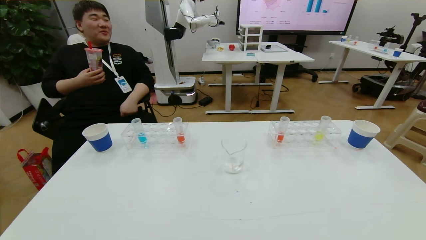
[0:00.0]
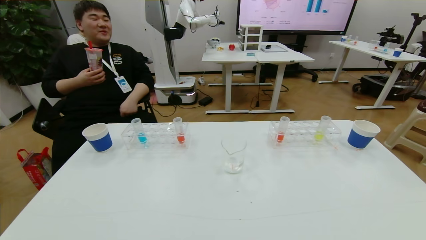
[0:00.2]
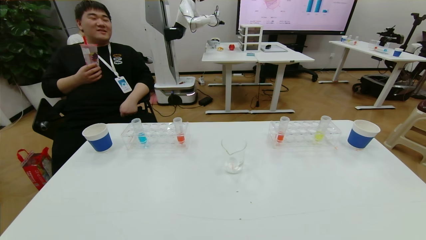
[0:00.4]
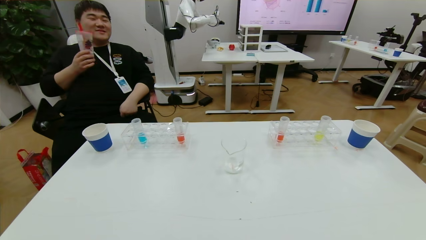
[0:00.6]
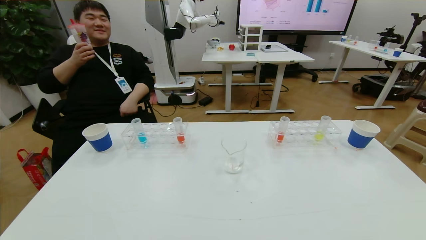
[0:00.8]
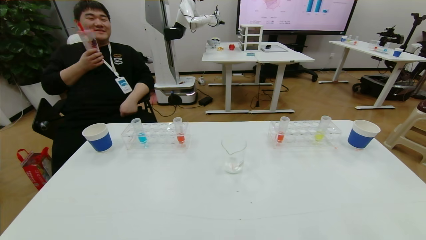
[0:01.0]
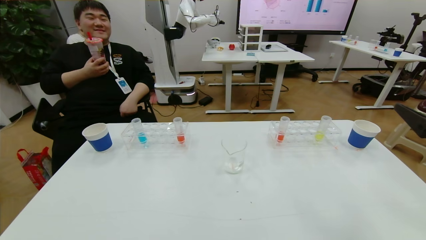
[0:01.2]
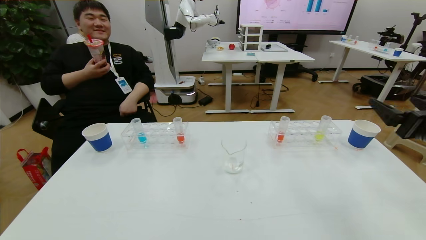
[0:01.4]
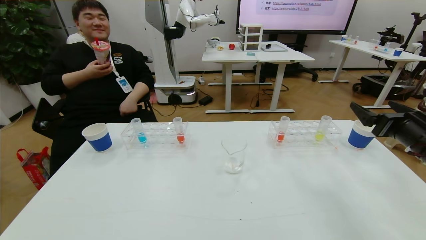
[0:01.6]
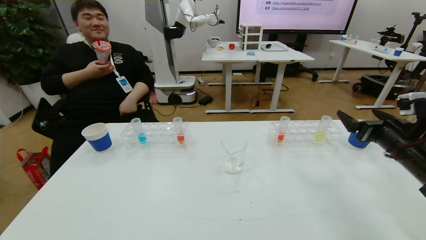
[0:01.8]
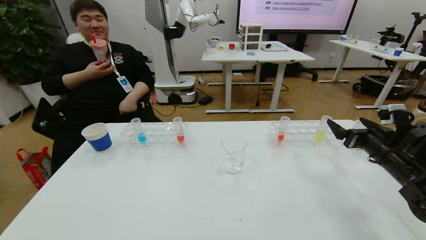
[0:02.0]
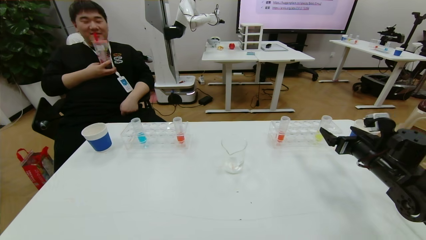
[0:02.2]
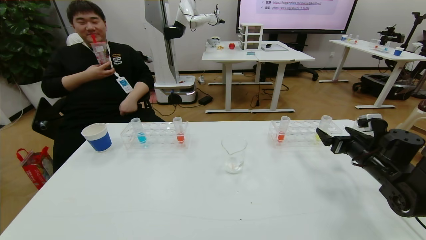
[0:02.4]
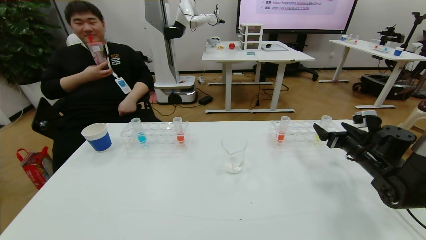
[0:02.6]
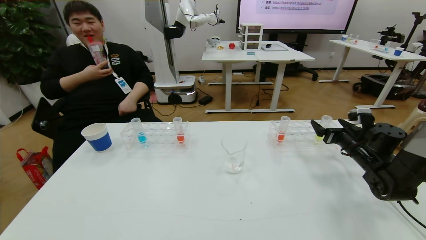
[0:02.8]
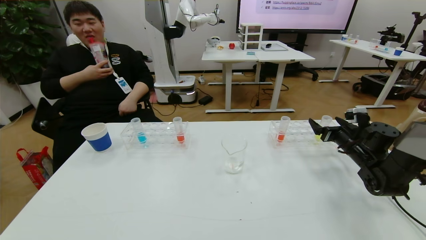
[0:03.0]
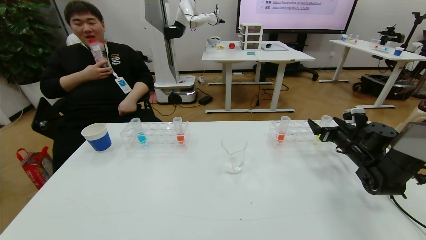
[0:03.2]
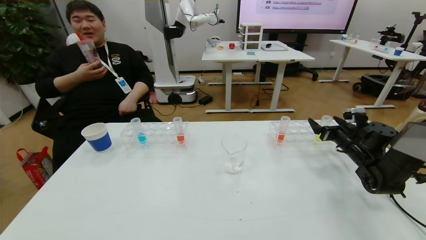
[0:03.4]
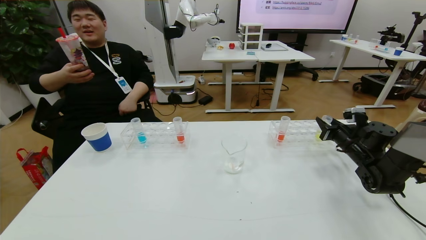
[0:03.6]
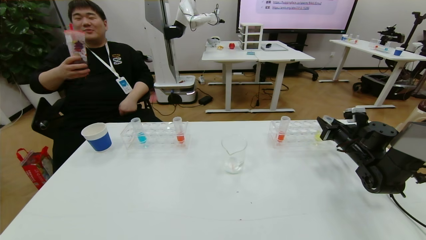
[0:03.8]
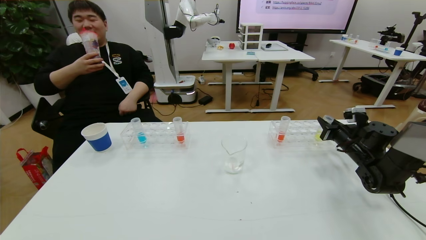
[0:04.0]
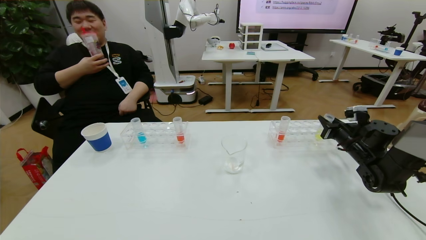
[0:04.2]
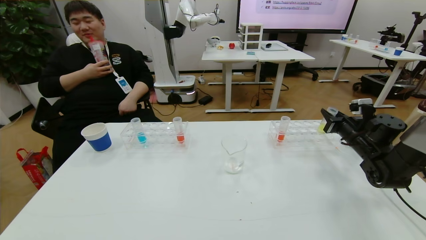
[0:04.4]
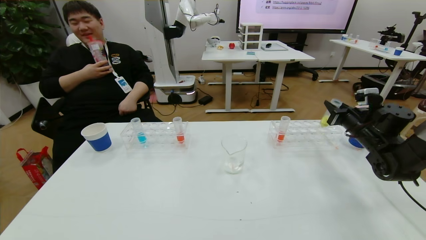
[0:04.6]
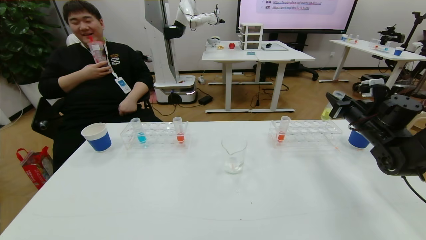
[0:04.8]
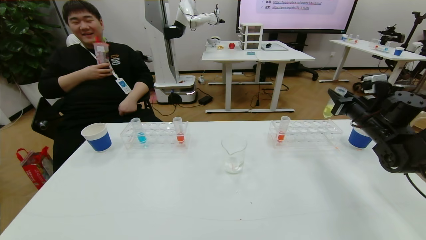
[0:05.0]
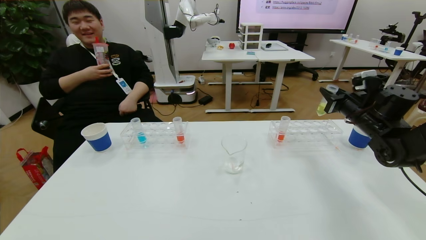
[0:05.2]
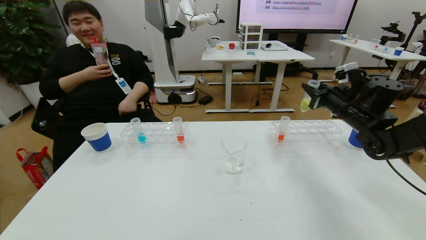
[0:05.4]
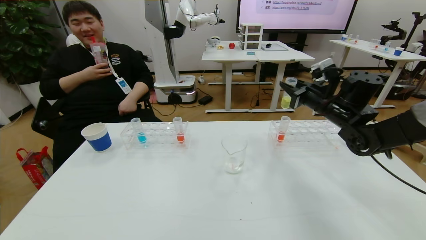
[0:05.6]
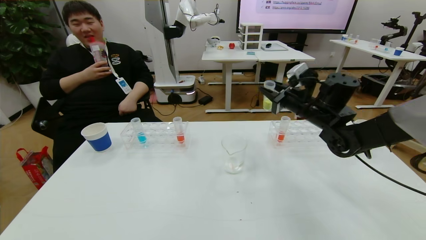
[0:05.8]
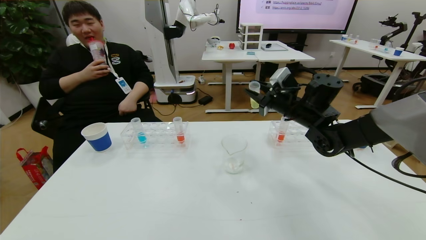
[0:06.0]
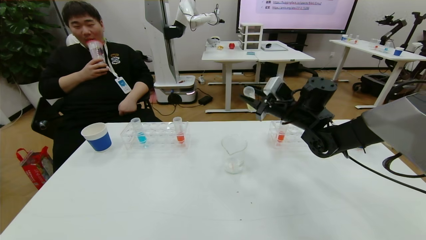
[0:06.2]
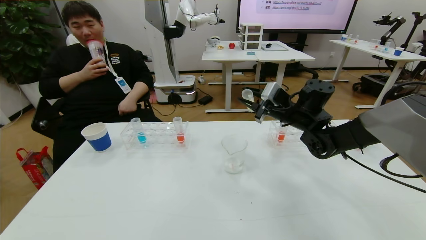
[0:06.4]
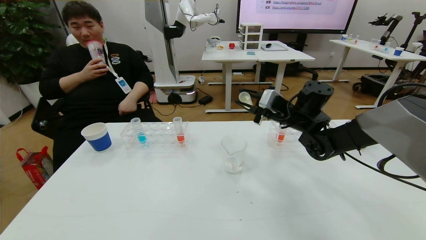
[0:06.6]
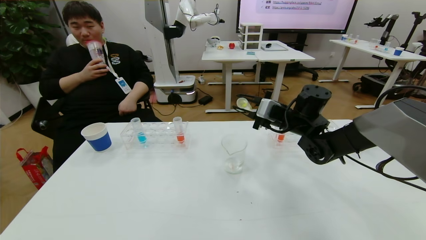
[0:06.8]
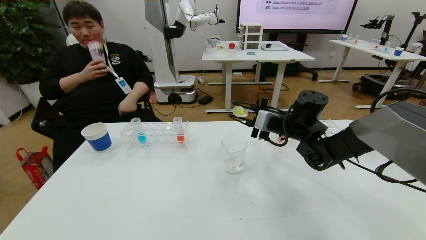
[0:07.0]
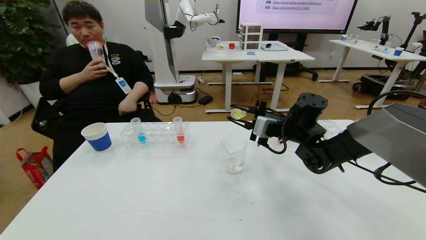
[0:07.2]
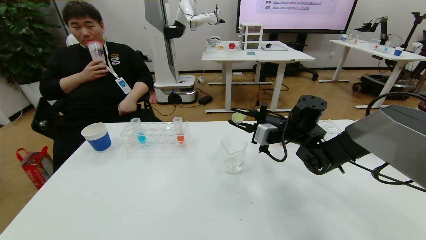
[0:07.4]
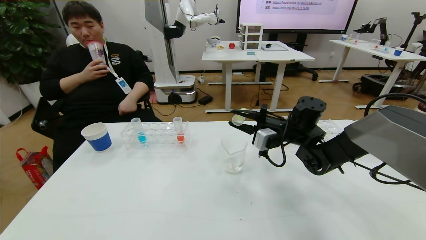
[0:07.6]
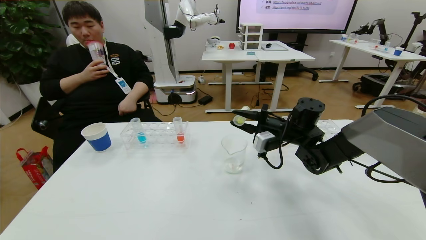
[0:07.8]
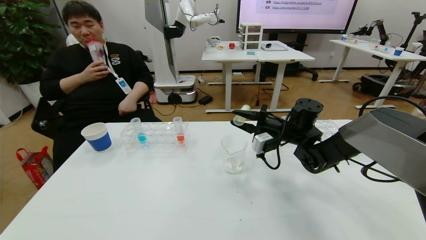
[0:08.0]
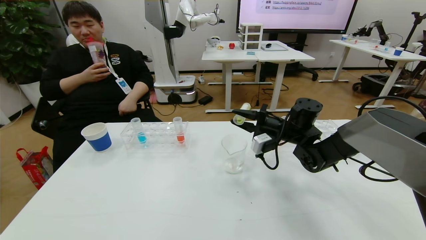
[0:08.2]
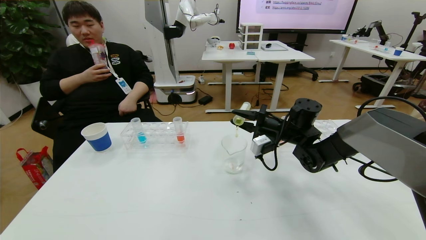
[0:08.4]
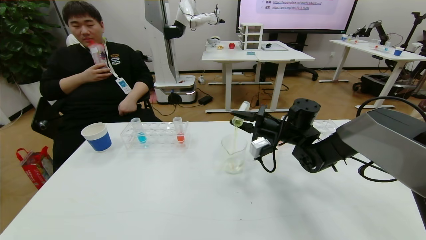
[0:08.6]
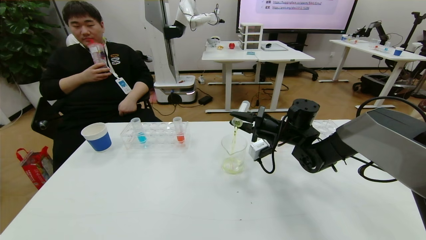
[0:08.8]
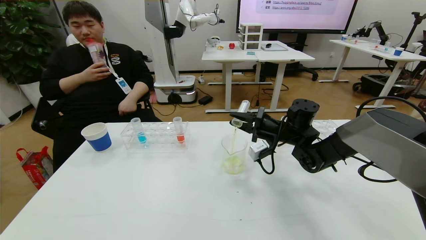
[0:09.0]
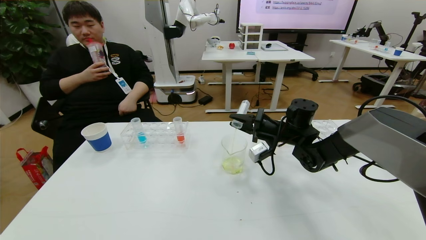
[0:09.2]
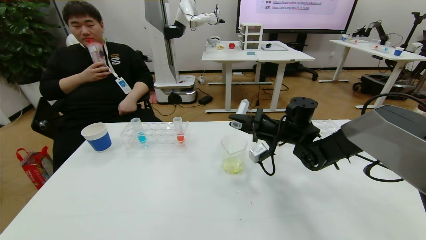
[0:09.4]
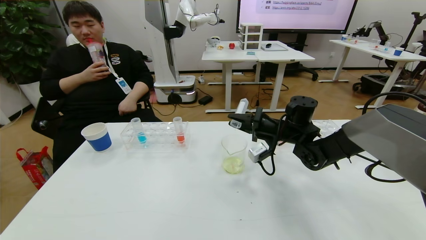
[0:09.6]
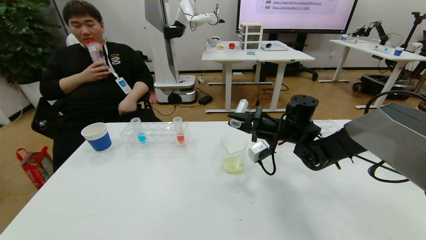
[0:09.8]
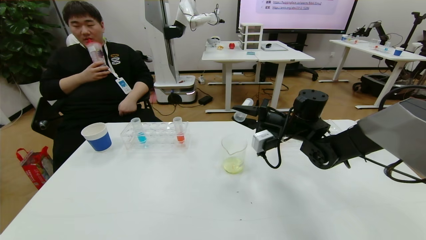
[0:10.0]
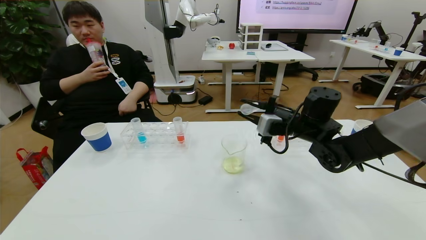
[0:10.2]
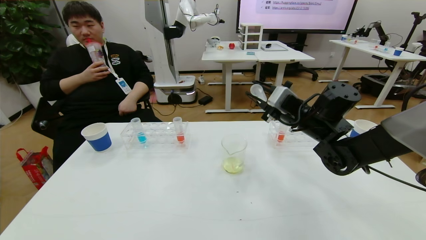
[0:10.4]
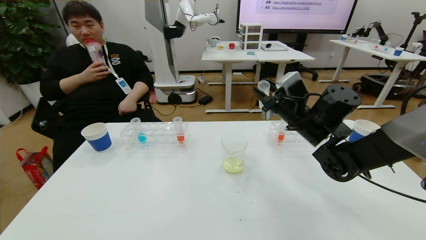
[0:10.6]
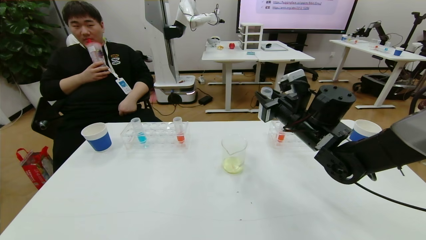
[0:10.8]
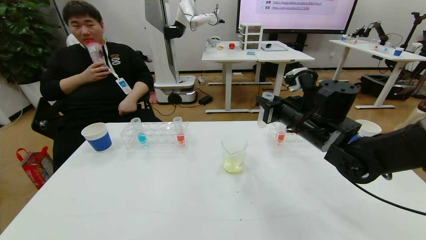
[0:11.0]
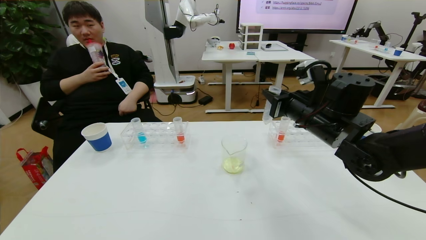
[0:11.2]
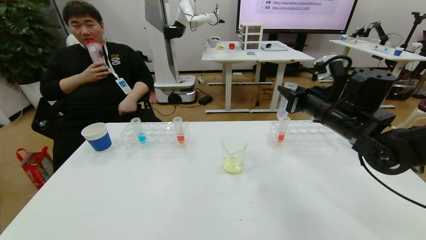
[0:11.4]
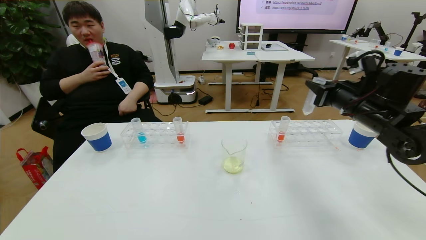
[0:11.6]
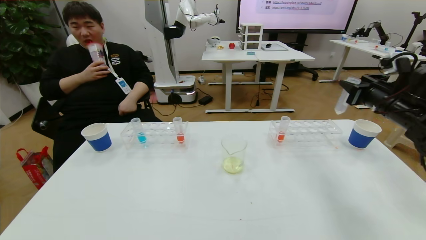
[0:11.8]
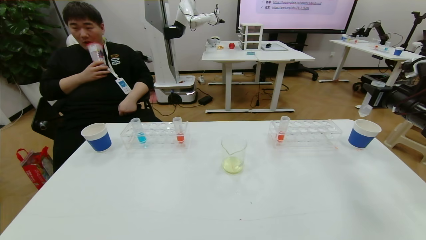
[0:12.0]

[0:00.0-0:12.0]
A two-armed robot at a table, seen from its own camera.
Task of the whole recording: pick up the test tube with yellow pigment and the test tube with blue pigment by grippers and pour them into the beaker.
0:00.0 to 0:01.6: The right gripper moves forward, approximately 30 cm.
0:01.6 to 0:03.0: The right gripper is displaced forward and downward by some 20 cm.
0:03.0 to 0:04.4: The right gripper closes its fingers.
0:04.4 to 0:06.0: The right gripper moves to the left and upward, roughly 20 cm.
0:06.0 to 0:07.6: The right gripper is displaced downward by some 5 cm.
0:09.0 to 0:10.4: The right gripper shifts approximately 5 cm upward.
0:10.4 to 0:12.0: The right gripper is displaced to the right by some 25 cm.

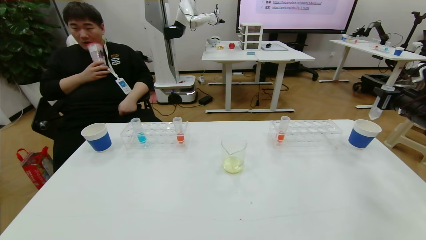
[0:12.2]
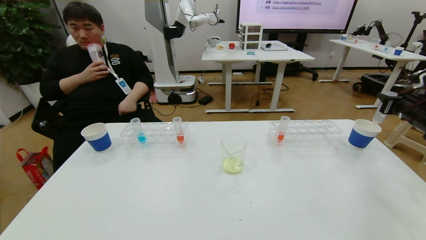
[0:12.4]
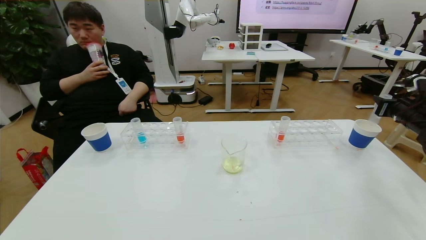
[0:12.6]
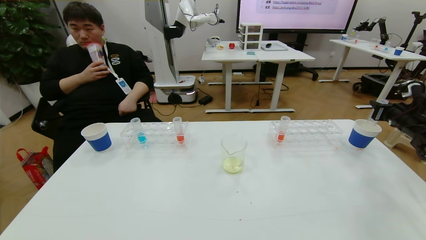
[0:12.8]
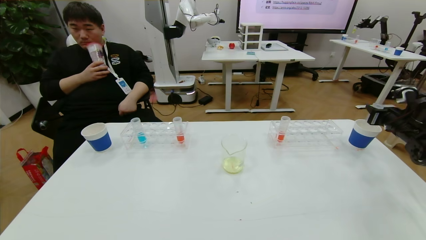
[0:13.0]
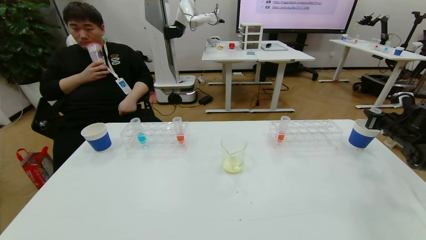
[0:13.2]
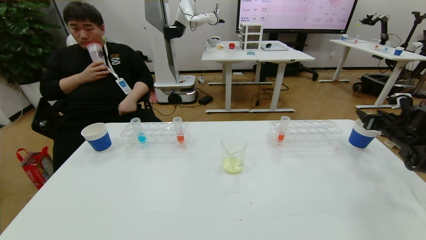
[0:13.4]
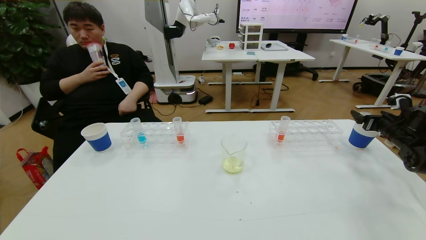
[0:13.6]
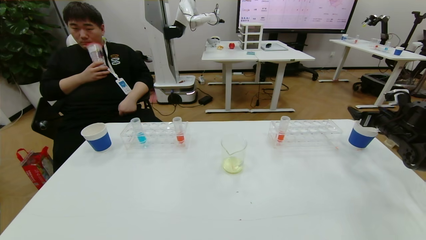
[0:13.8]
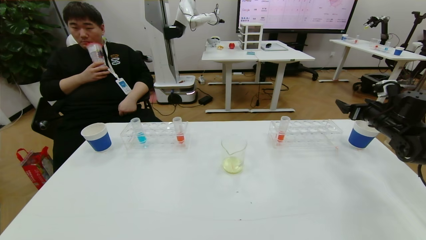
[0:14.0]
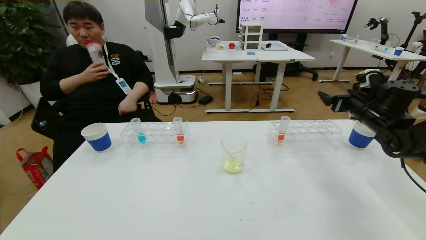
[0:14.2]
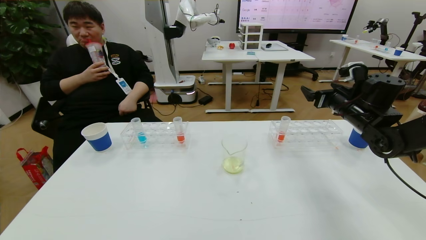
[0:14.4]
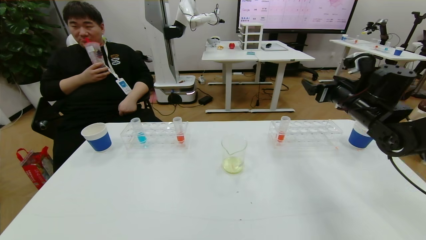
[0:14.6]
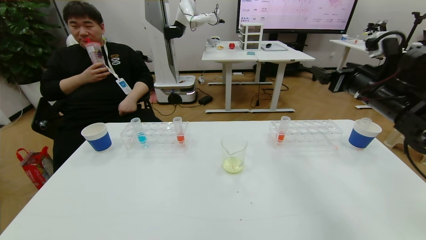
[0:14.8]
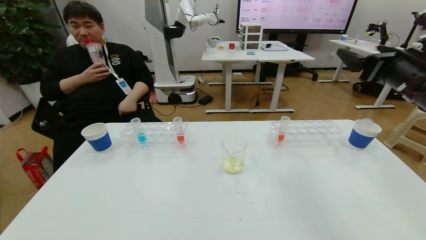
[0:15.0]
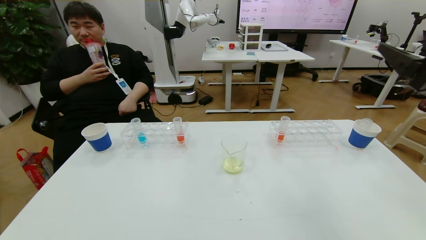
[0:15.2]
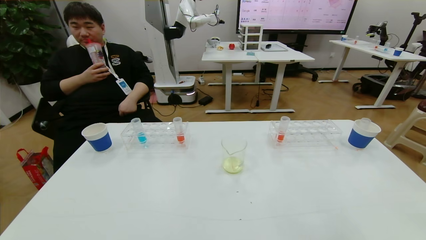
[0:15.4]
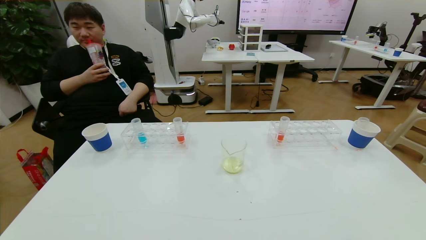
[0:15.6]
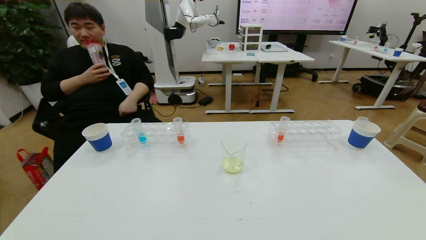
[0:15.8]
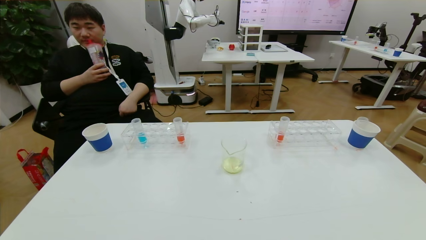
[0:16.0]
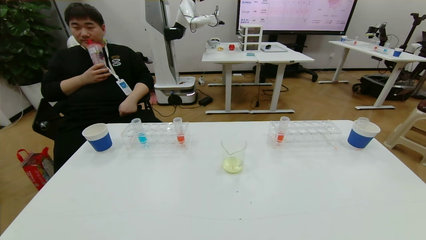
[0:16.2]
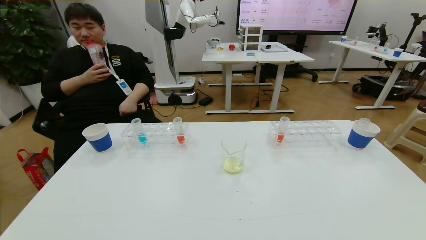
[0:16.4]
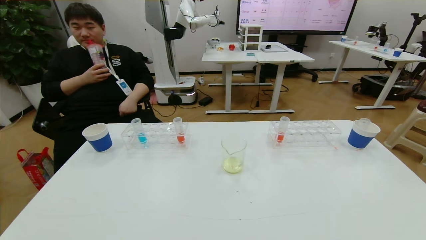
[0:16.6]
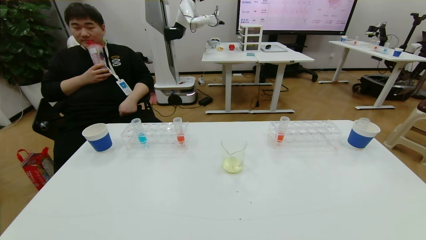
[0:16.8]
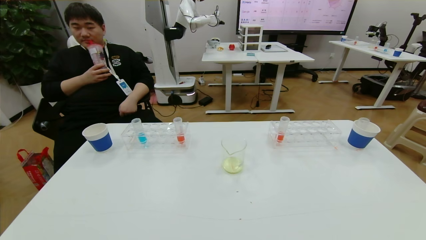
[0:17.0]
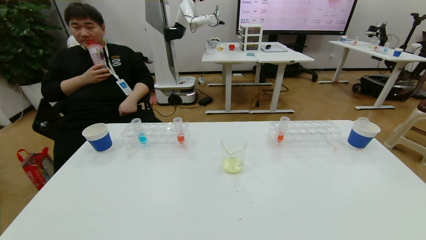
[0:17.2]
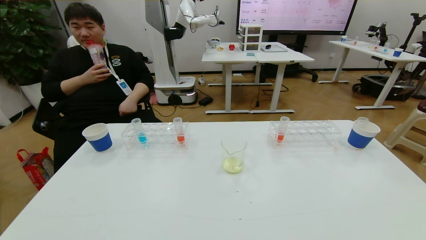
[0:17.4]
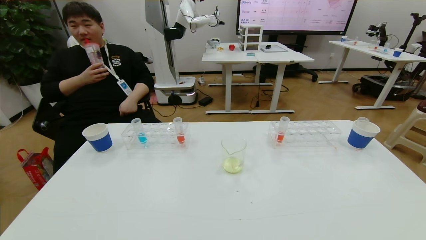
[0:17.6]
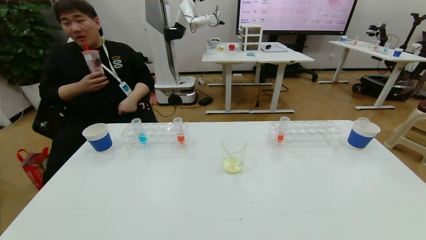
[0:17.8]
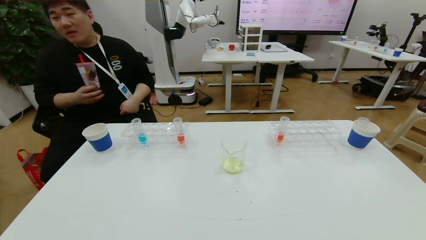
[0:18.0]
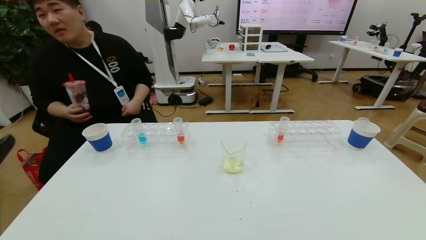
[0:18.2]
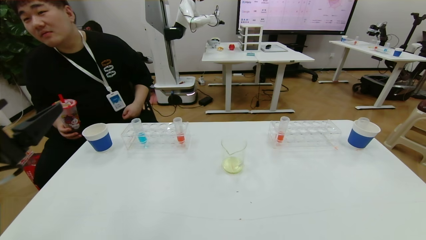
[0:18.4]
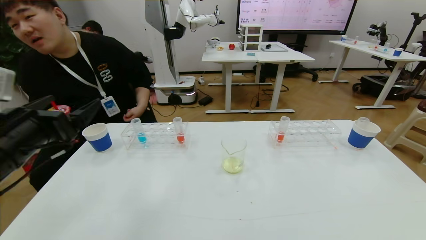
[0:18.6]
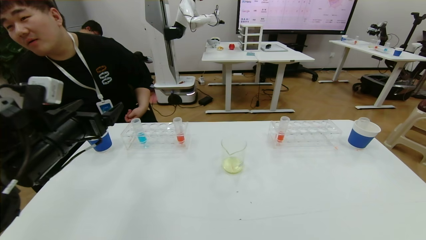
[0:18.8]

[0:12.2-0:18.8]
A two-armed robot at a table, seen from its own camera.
Task of the whole recording: pick up the test tube with yellow pigment and the test tube with blue pigment by grippers and pour them into the beaker.
Step, 0:12.2 to 0:17.2: Pour the yellow reagent into the graduated cylinder and place the test tube into the paper cup.
0:12.2 to 0:13.8: The right gripper shifts approximately 5 cm downward, and opens its fingers.
0:13.8 to 0:15.4: The right gripper moves backward, upward and to the left, roughly 35 cm.
0:15.4 to 0:17.2: The right gripper moves downward and backward, approximately 25 cm.
0:17.2 to 0:18.8: The left gripper goes roughly 30 cm forward.
